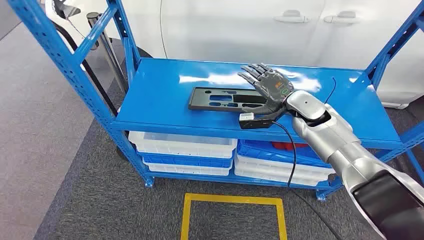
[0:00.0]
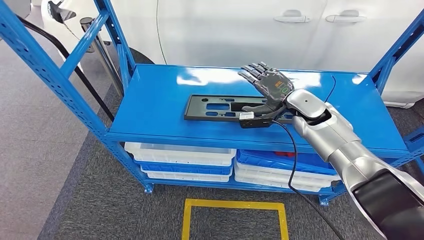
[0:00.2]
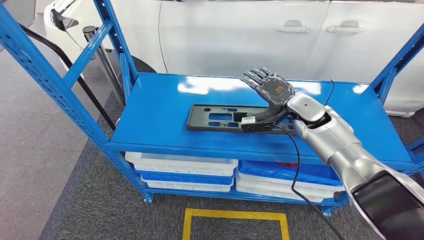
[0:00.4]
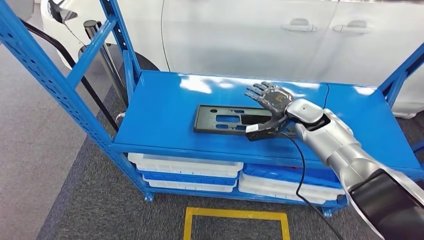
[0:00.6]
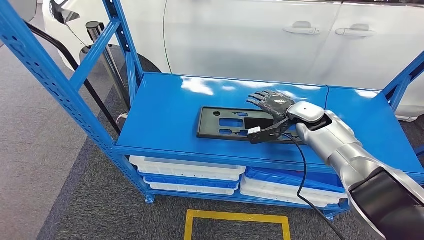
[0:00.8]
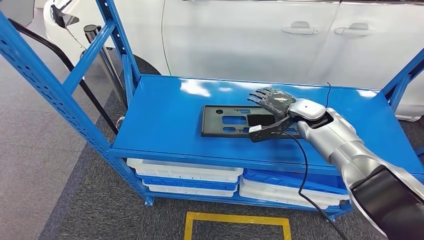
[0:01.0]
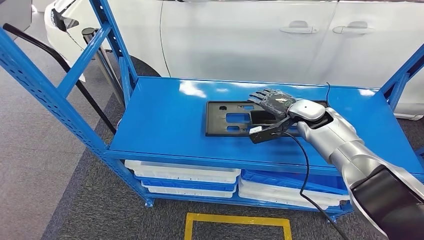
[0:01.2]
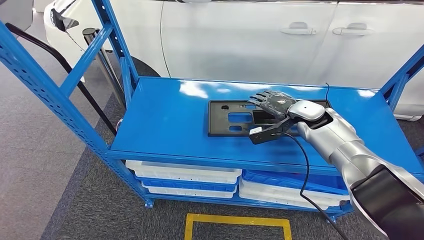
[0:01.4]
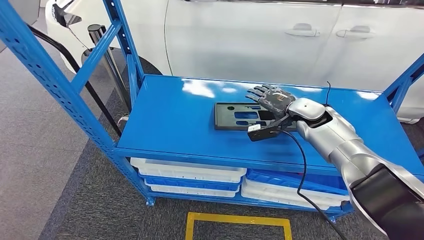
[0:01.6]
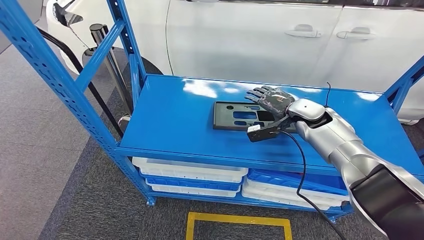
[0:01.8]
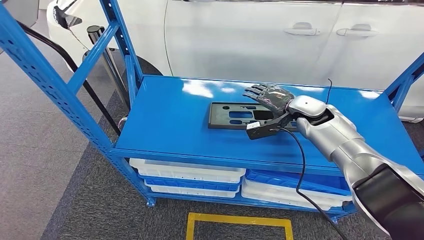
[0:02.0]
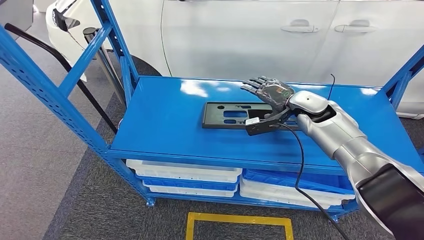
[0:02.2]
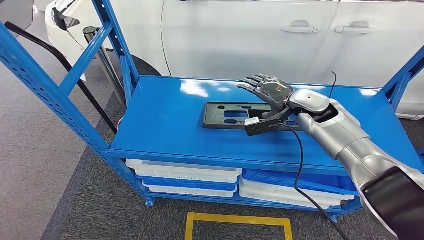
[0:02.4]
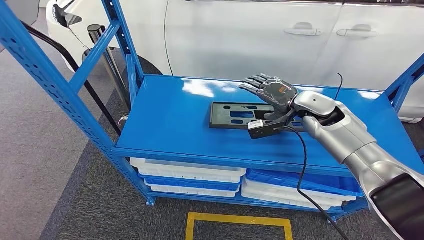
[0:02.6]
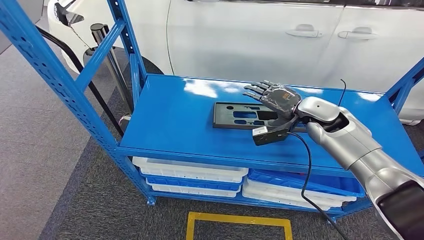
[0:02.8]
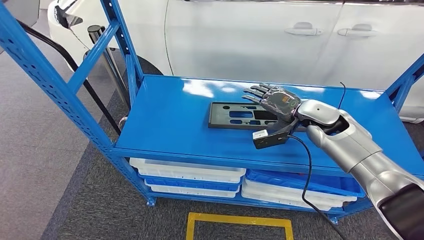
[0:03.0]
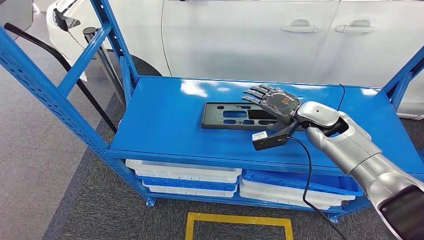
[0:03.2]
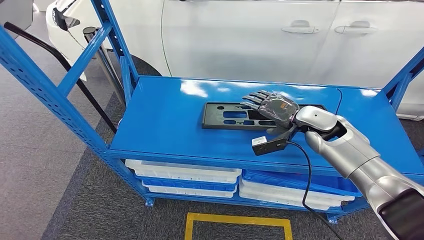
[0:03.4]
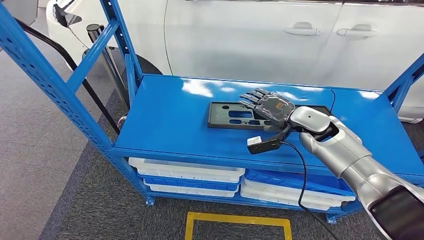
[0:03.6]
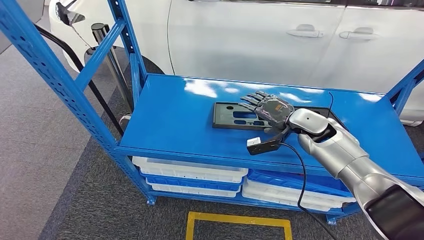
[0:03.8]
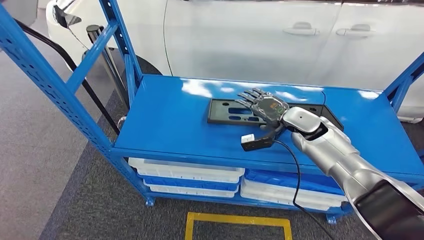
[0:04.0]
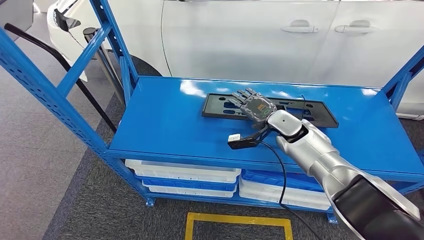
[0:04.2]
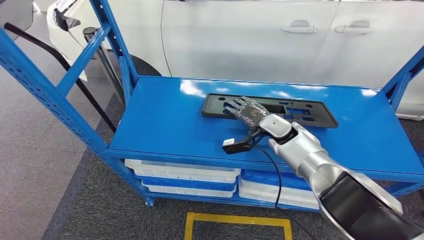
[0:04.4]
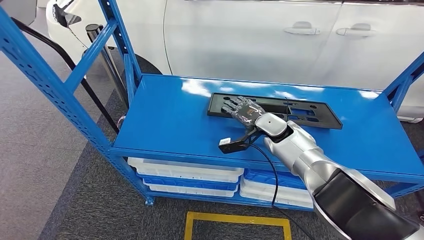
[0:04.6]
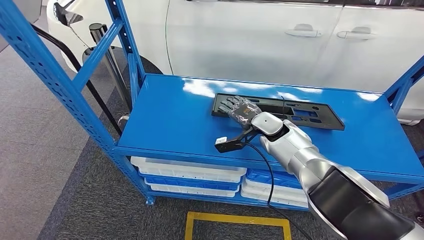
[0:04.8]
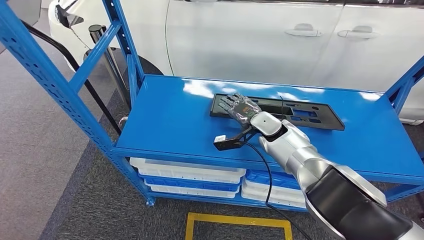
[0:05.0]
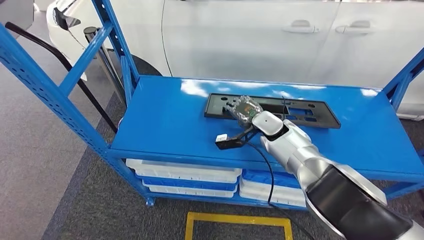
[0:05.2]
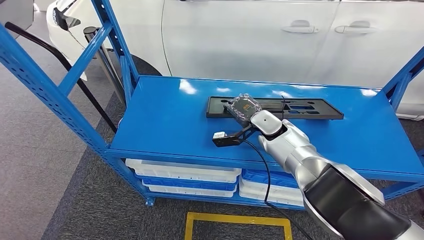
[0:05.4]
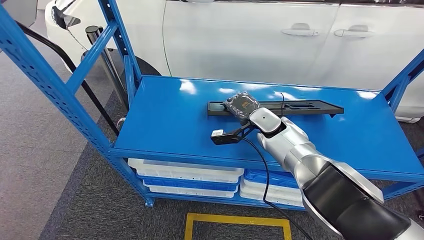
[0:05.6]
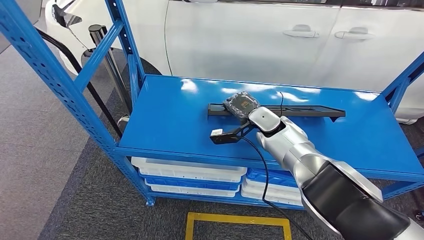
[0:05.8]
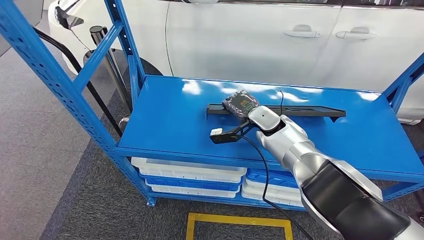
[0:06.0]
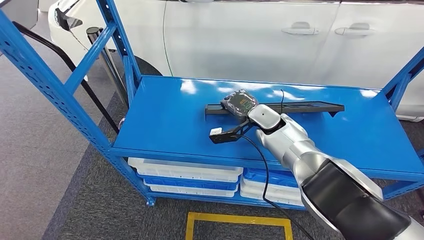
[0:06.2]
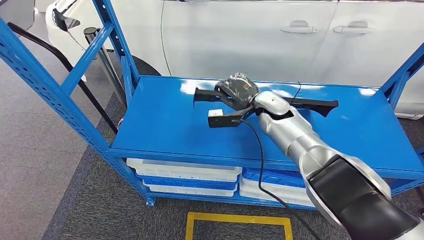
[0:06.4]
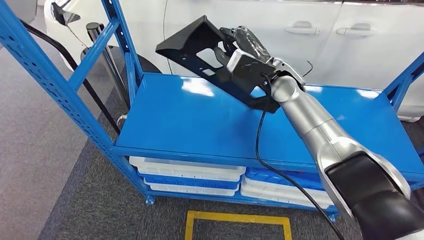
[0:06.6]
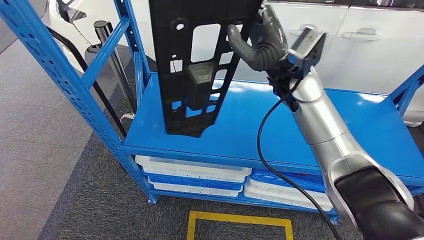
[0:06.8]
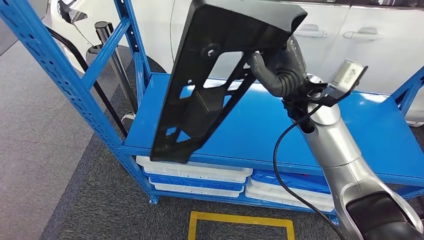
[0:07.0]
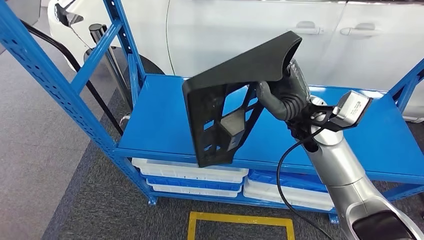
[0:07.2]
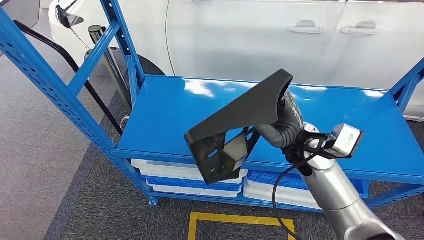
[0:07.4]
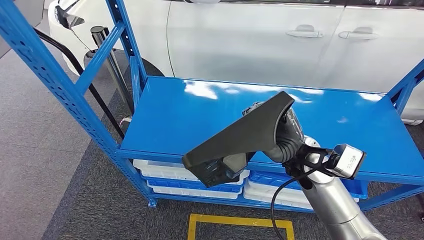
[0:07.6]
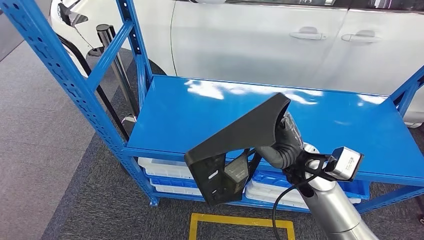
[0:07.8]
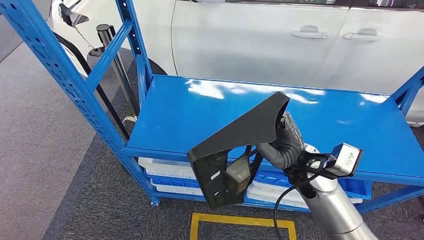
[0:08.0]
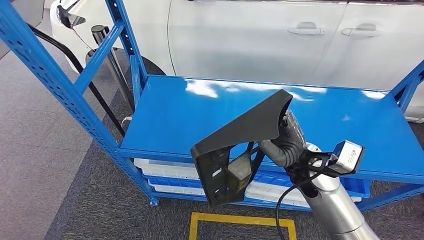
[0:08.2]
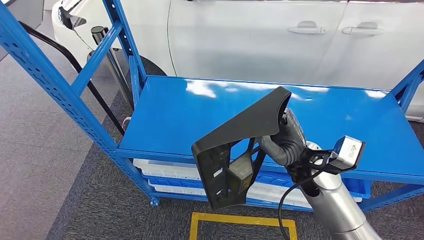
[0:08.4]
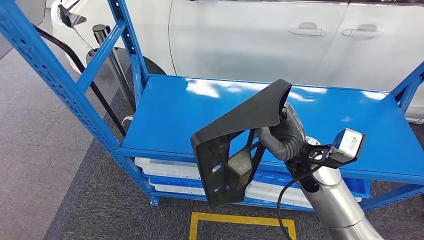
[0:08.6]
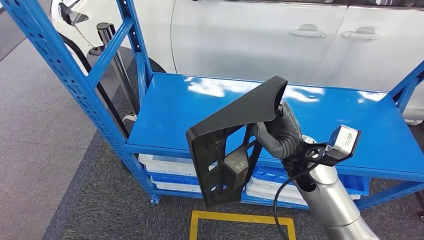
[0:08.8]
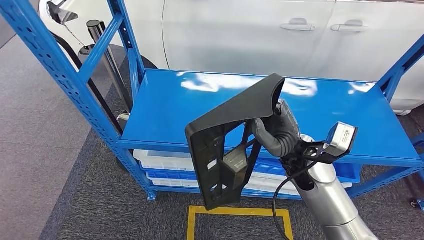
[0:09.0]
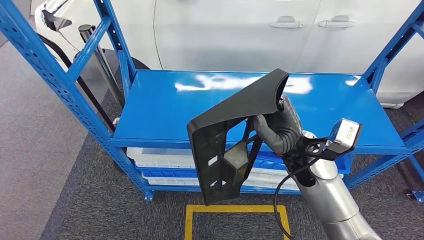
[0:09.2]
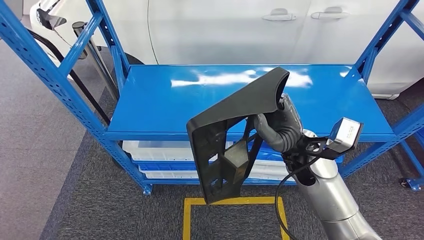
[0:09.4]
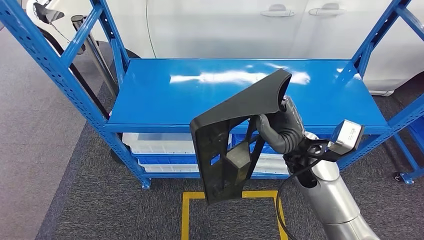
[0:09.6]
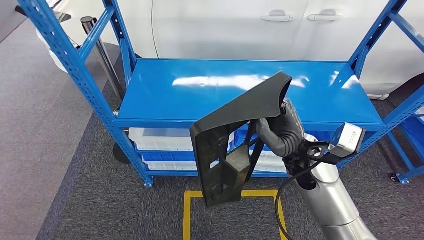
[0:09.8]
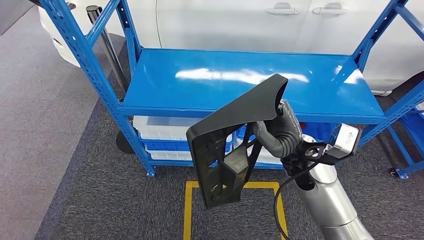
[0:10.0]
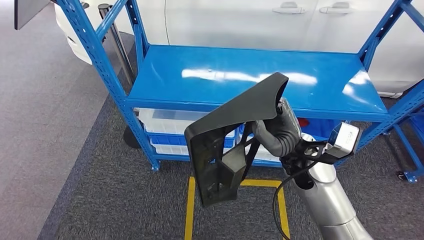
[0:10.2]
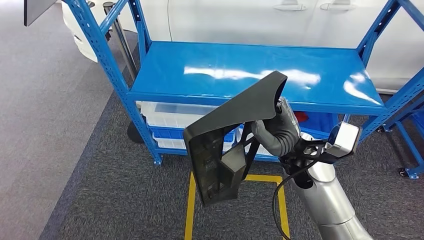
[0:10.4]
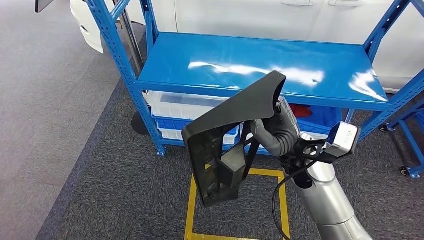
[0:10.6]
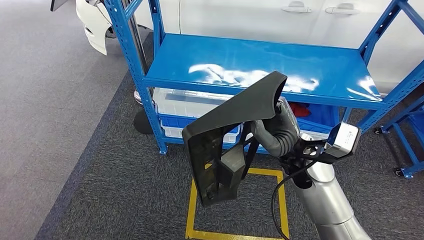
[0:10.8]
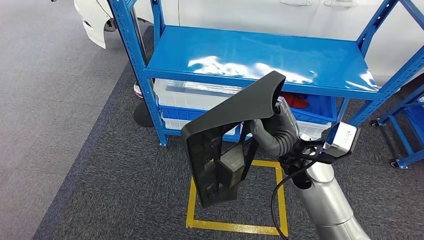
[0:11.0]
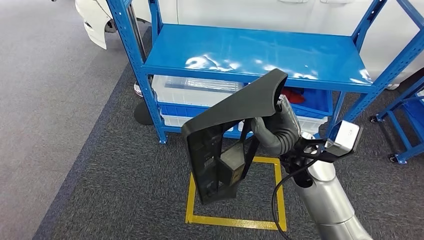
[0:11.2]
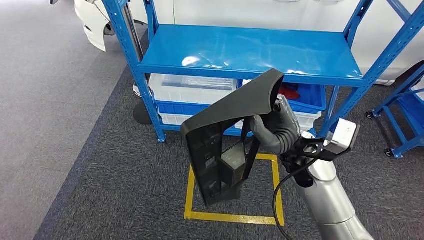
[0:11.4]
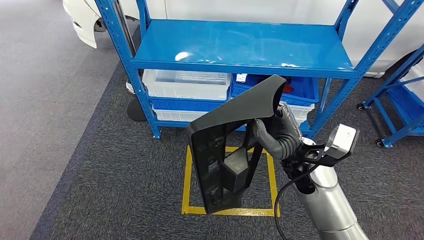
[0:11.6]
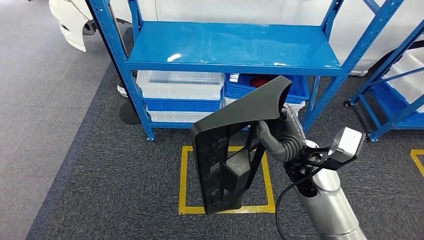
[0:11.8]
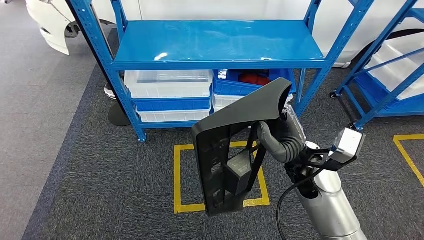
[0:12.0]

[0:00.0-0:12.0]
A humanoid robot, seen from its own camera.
Step, 0:00.0 to 0:06.4: Pick up the large material from the shelf.
0:01.6 to 0:03.0: The hands make only small movements.
0:06.0 to 0:07.6: The right hand shifts approximately 15 cm backward, and goes upward and returns, approximately 20 cm each way.

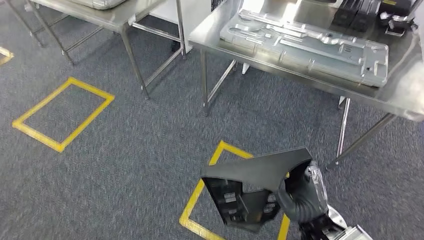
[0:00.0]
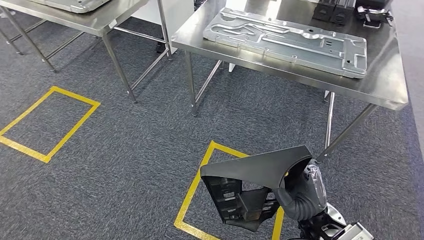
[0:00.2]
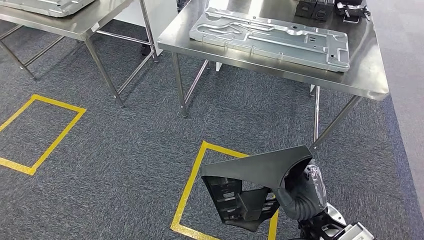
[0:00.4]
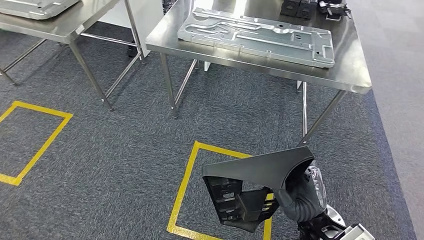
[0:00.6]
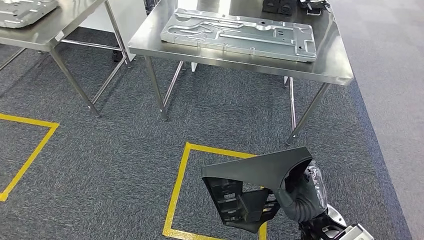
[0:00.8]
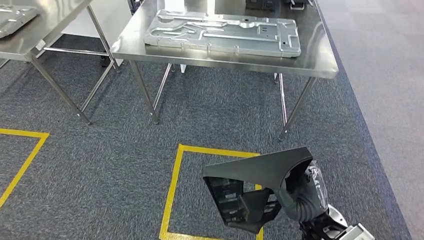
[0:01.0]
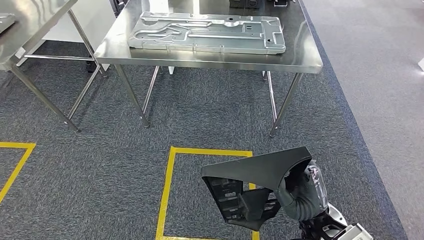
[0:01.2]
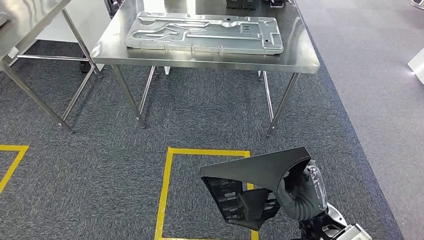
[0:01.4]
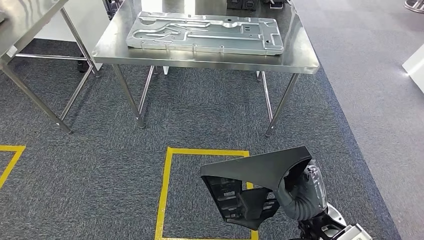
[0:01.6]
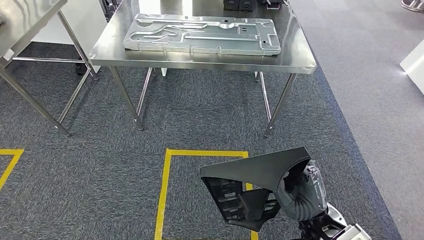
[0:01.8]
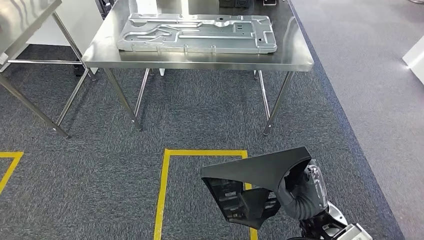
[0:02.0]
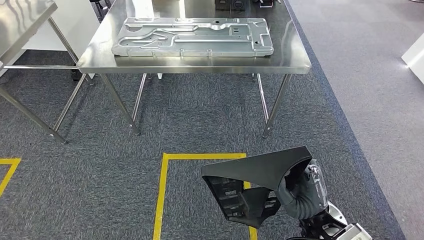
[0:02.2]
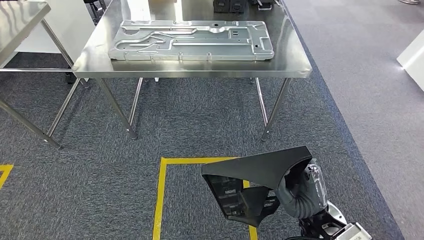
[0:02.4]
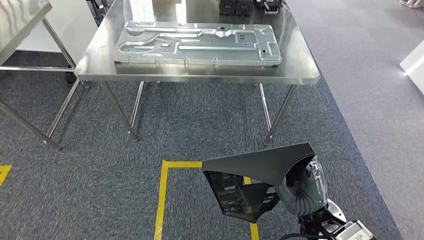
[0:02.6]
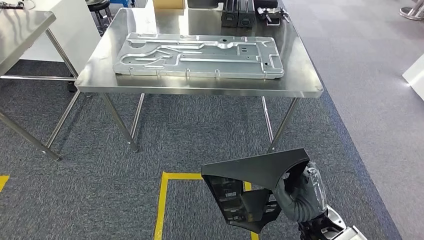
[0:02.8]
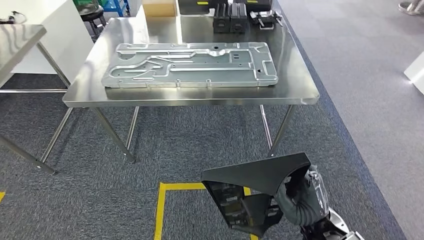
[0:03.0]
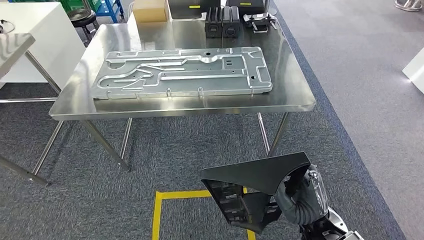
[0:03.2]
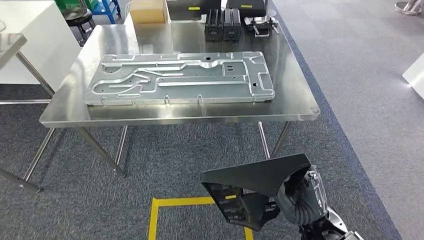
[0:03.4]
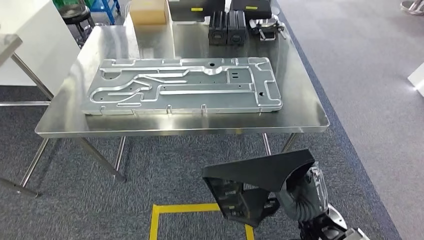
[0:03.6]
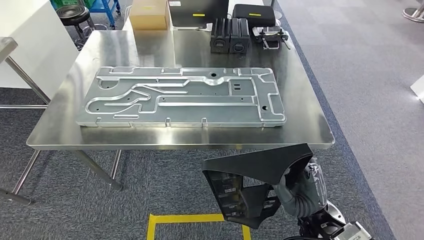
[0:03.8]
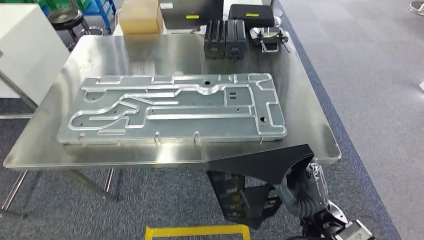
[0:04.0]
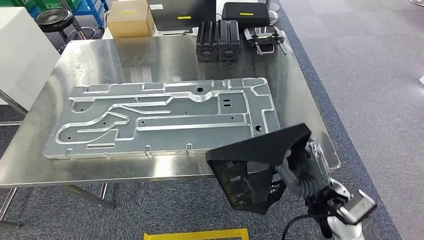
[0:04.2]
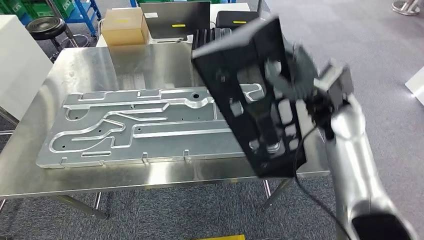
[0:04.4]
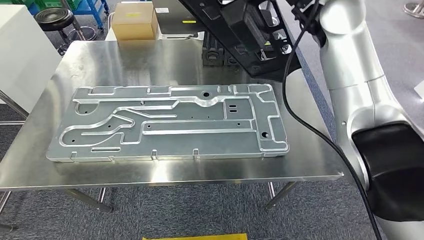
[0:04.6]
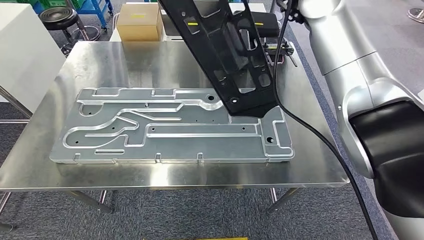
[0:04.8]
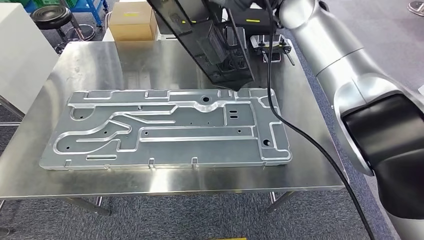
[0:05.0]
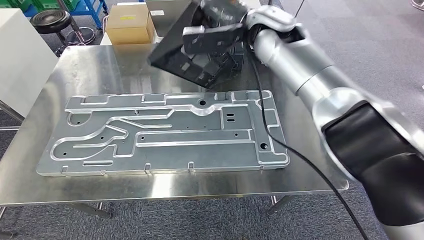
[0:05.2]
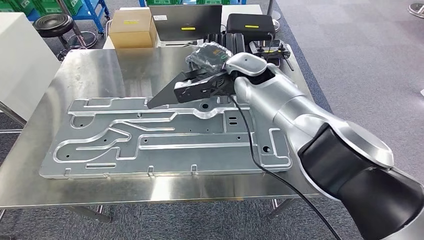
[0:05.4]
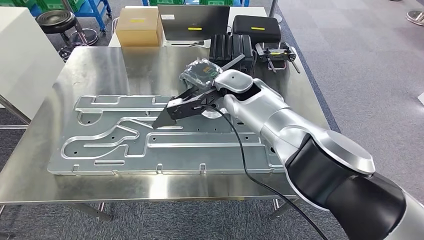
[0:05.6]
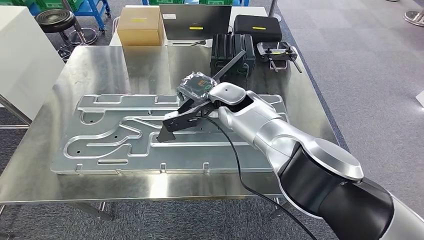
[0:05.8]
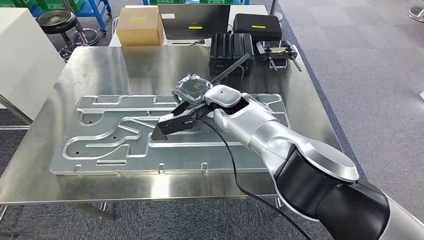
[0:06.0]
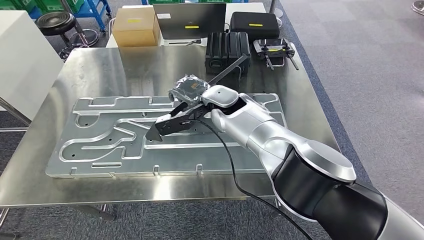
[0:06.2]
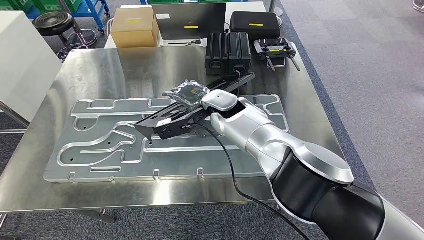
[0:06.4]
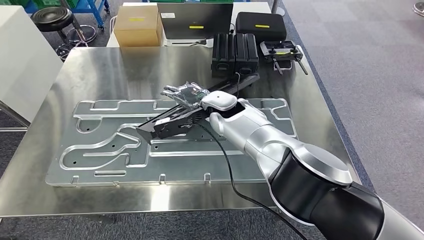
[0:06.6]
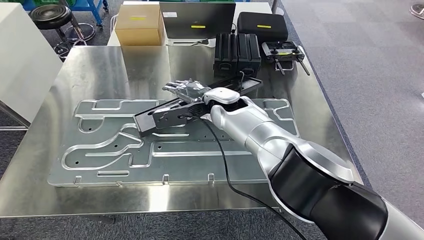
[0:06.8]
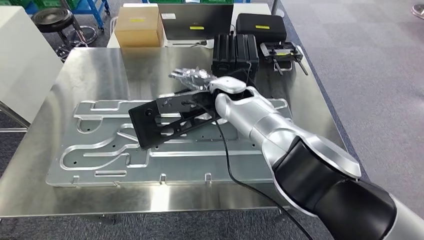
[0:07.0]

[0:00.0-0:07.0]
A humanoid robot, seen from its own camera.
Step, 0:00.0 to 0:06.2: Move the large material to the workbench.
